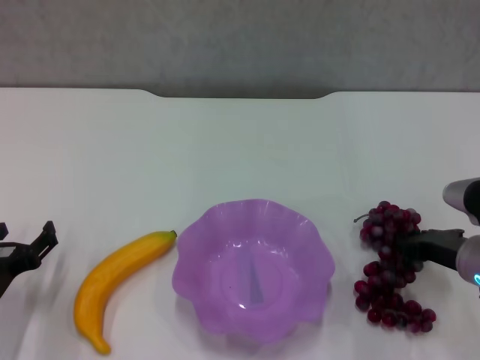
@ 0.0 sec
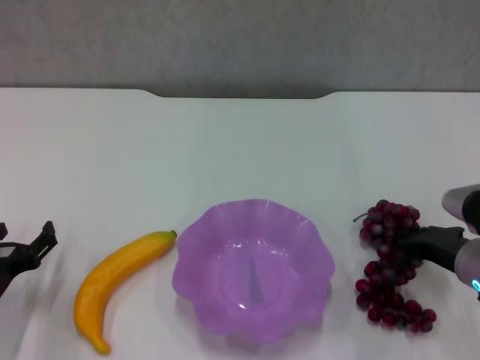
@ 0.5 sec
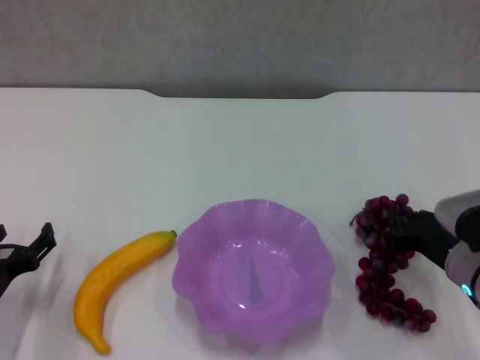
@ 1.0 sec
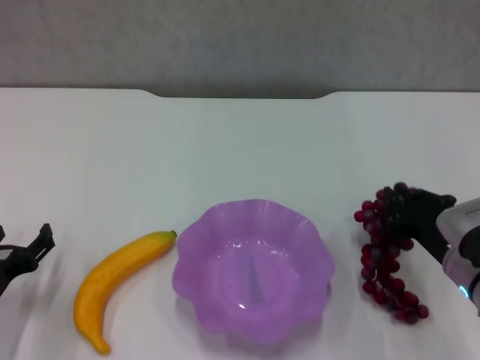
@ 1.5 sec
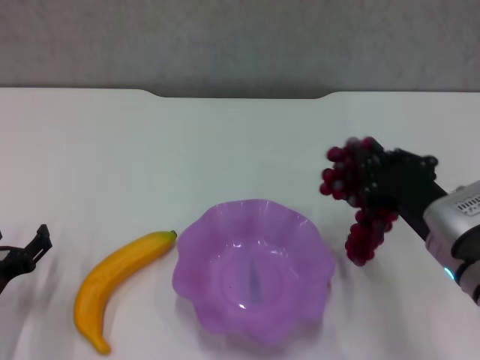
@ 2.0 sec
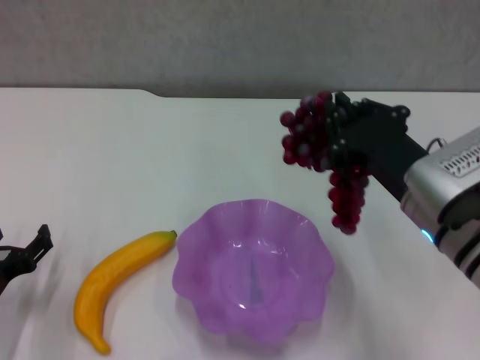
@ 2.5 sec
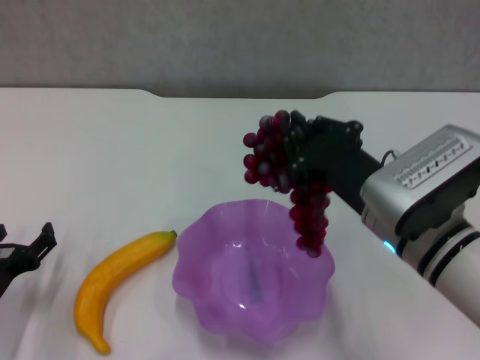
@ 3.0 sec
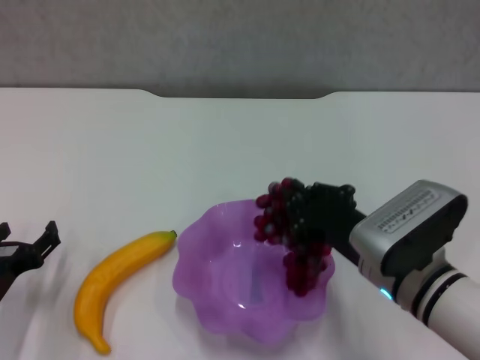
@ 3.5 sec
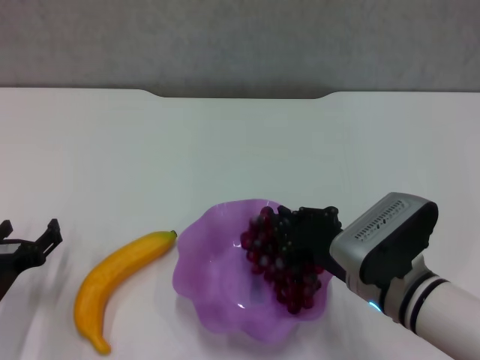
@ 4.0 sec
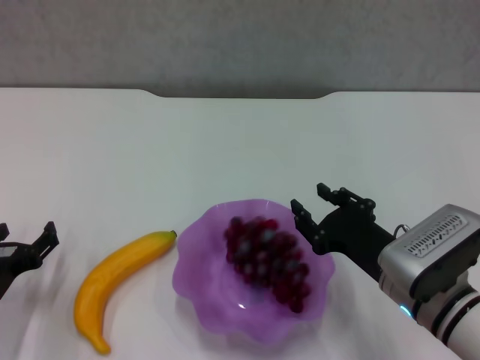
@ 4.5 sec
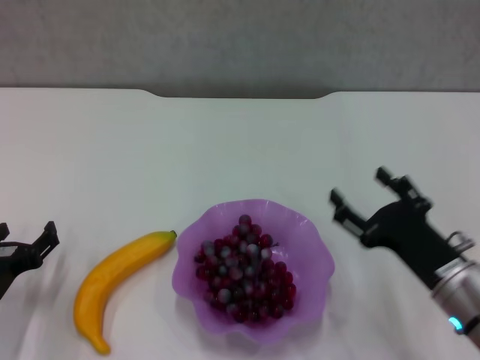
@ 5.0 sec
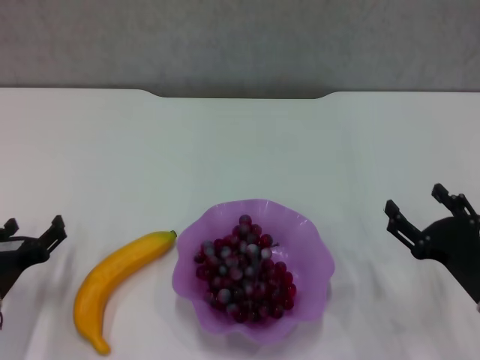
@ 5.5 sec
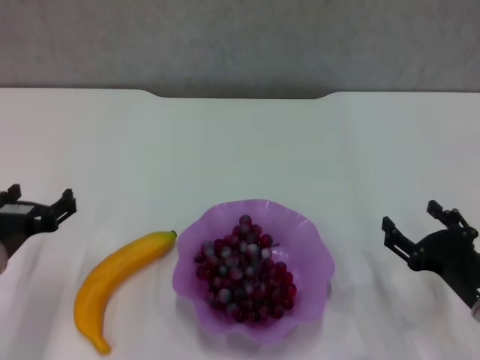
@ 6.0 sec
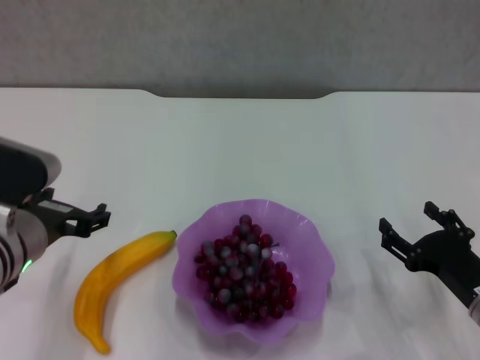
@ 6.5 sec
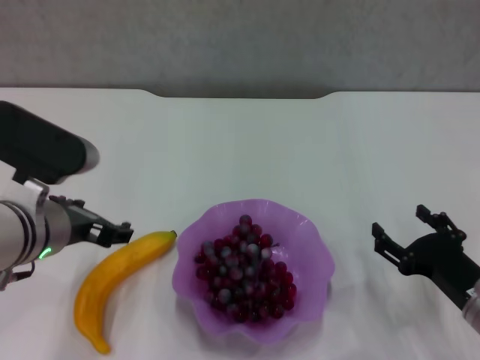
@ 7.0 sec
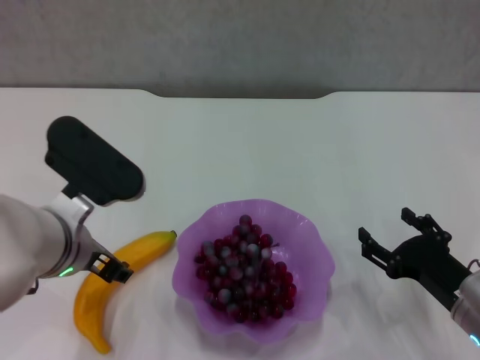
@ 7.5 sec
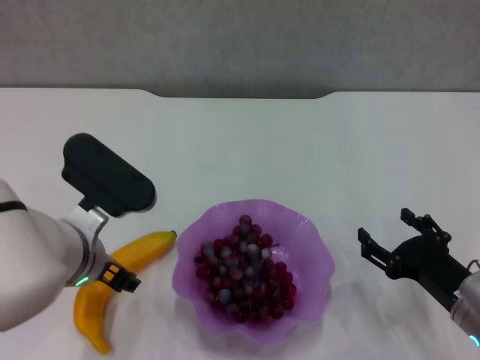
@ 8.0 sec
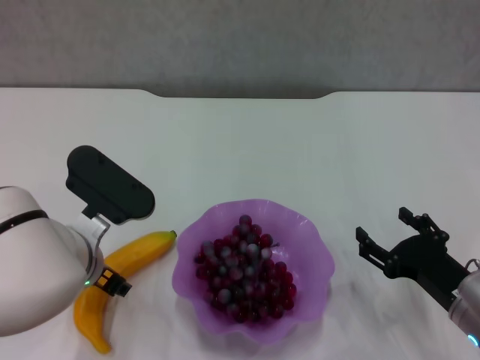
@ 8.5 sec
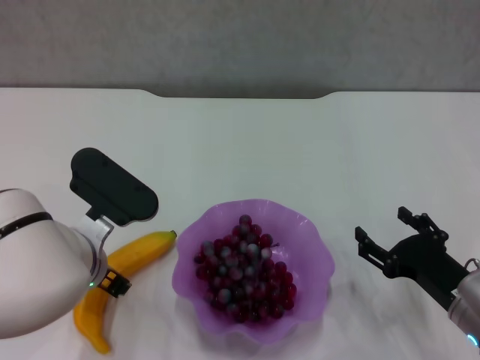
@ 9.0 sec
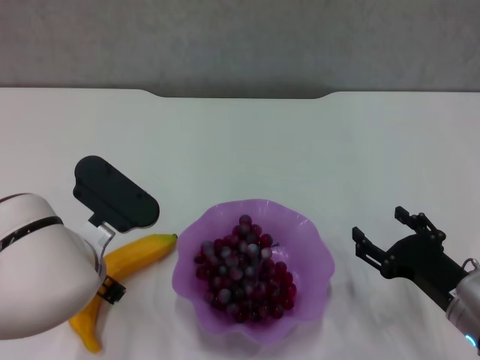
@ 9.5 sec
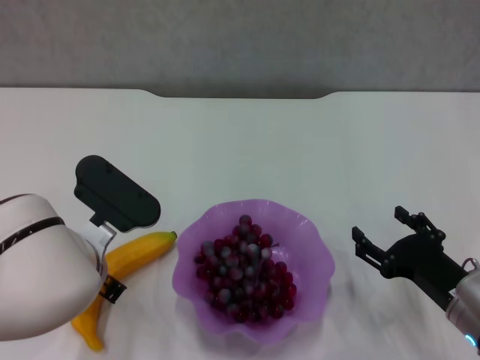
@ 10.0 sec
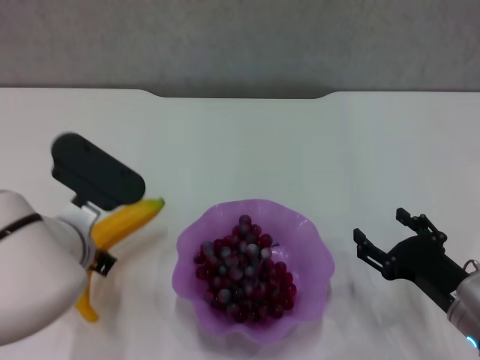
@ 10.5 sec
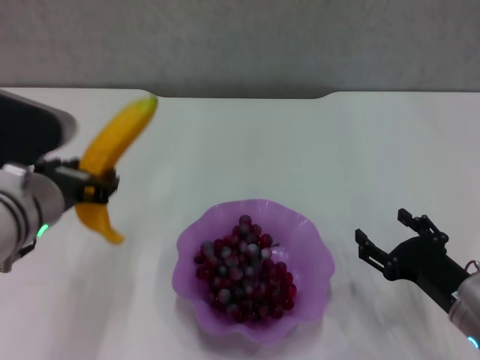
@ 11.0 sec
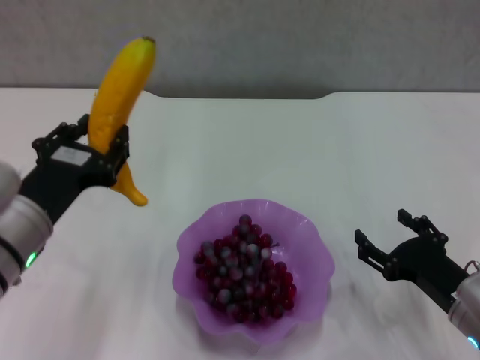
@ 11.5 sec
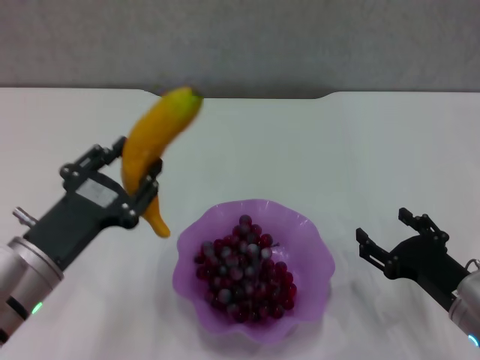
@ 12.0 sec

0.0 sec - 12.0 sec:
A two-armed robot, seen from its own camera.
Step, 0.0 sec - 4.5 sec: Place the grape in the purple plate with right gripper.
Step, 5.0 sec - 9.5 sec: Grasp the banana with left gripper.
0.0 sec - 2.0 sec: The right gripper heads to the left, covering approximately 5 cm.
2.0 sec - 4.0 sec: The right gripper goes approximately 5 cm to the left.
4.0 sec - 6.0 sec: The right gripper shifts about 15 cm to the right, and opens. The left gripper is displaced upward by about 10 cm.
6.0 sec - 8.0 sec: The left gripper is displaced to the right by about 10 cm.
8.0 sec - 10.0 sec: The left gripper closes up.
10.0 sec - 12.0 sec: The left gripper goes roughly 10 cm backward and to the left, and moves approximately 10 cm upward and comes back.

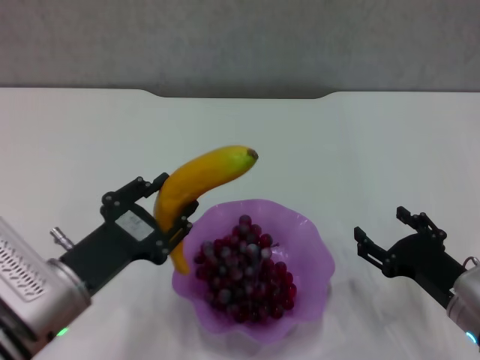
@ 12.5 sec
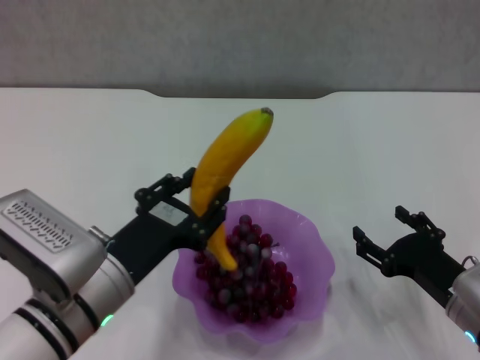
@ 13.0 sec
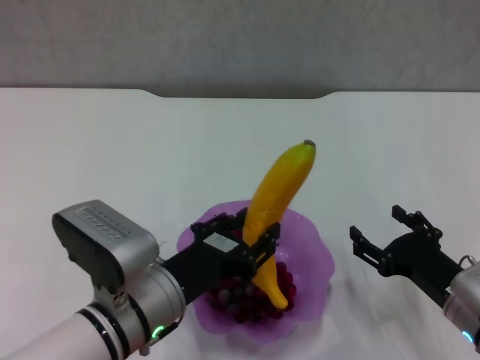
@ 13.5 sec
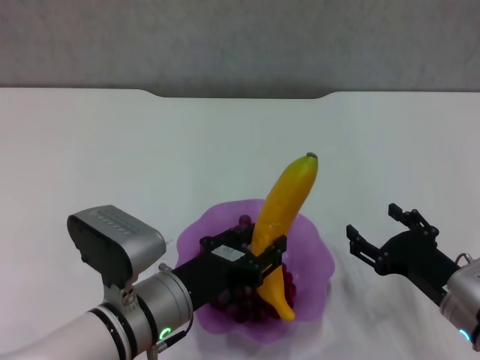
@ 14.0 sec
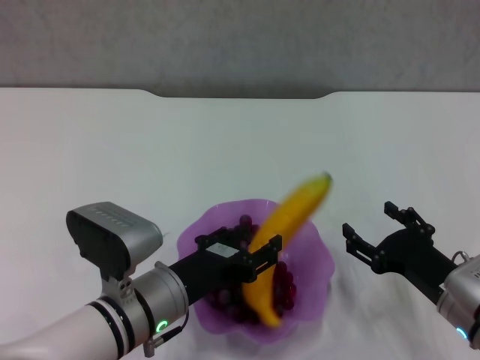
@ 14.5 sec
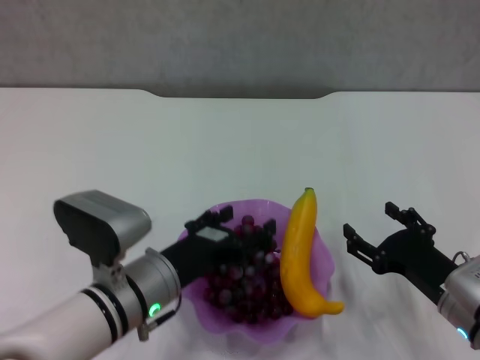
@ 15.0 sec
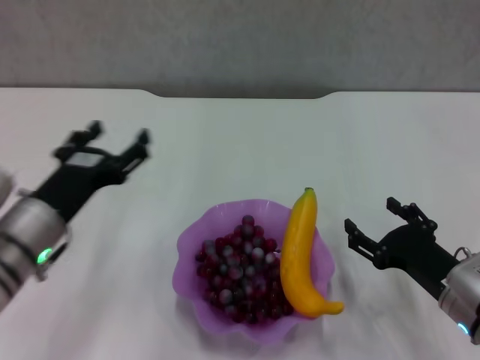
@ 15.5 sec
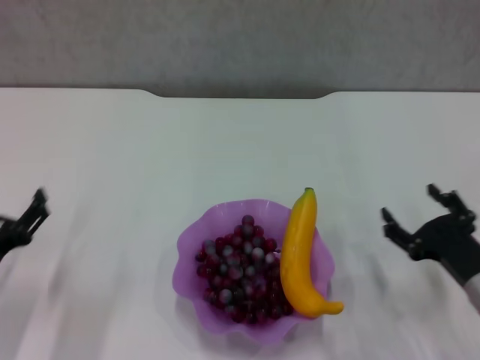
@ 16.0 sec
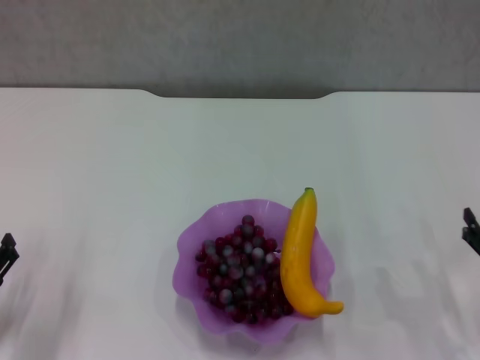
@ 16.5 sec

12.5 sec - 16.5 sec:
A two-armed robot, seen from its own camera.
Step, 12.5 sec - 14.5 sec: Place the banana in the purple plate with left gripper.
12.5 sec - 14.5 sec: The left gripper goes about 10 cm to the right.
14.5 sec - 16.5 sec: The left gripper is displaced to the left by roughly 20 cm, and opens its fingers, while the right gripper travels to the right by about 10 cm.
